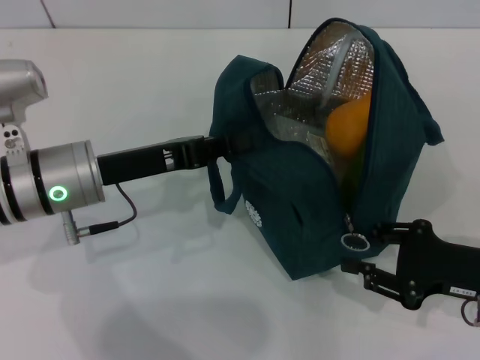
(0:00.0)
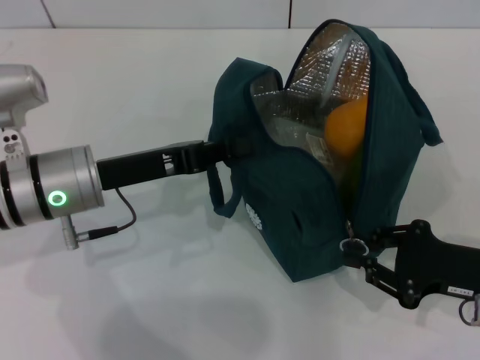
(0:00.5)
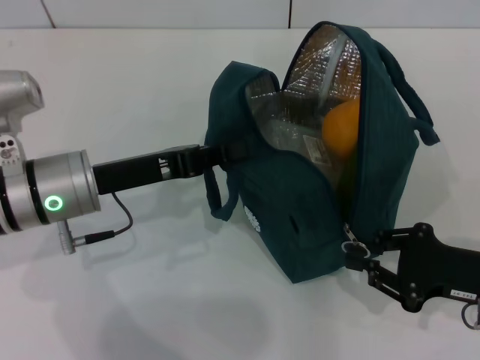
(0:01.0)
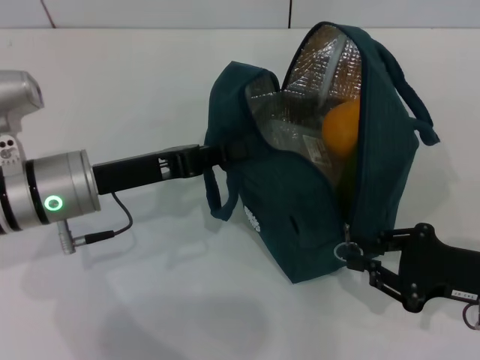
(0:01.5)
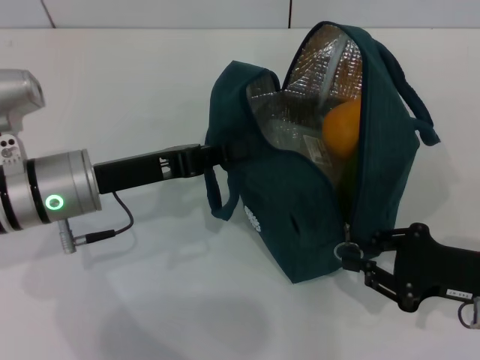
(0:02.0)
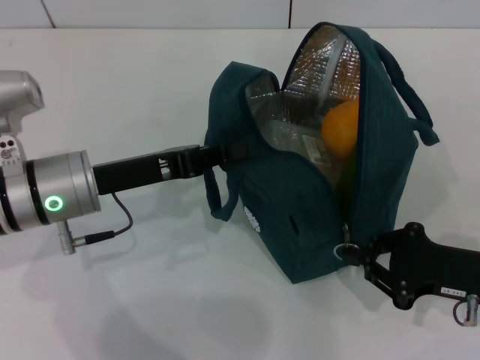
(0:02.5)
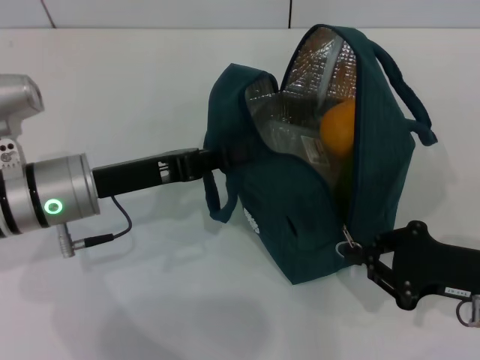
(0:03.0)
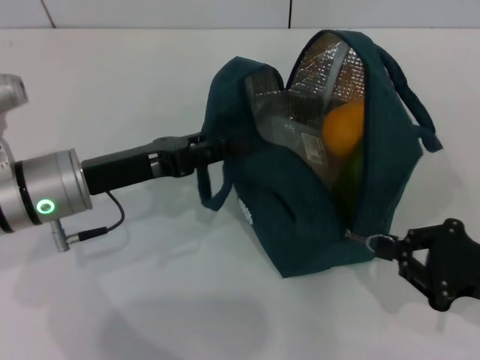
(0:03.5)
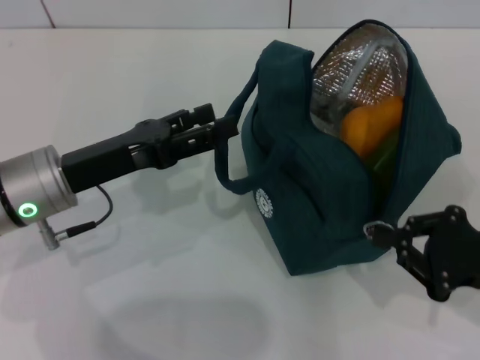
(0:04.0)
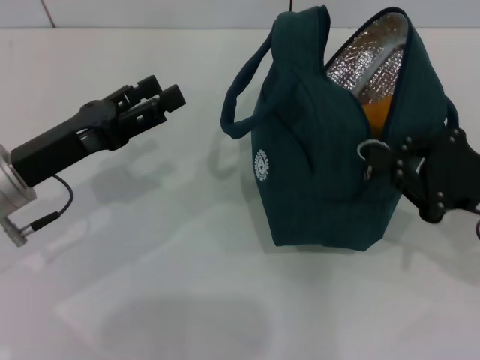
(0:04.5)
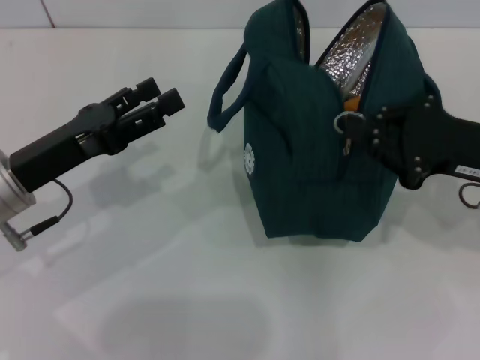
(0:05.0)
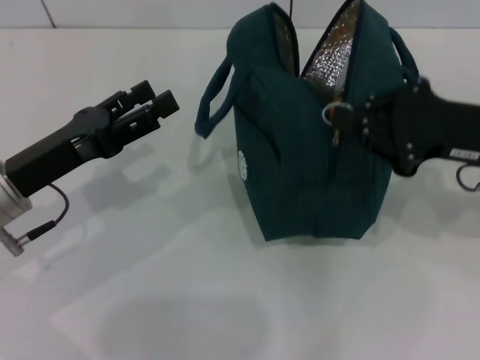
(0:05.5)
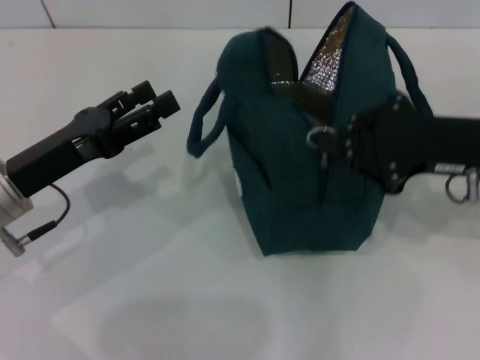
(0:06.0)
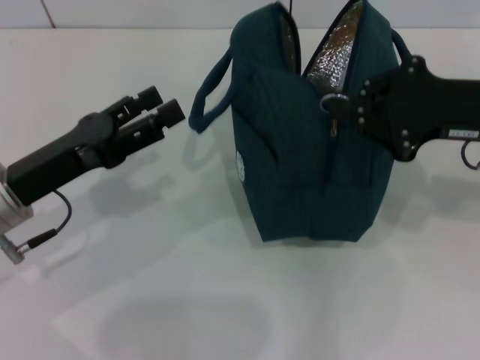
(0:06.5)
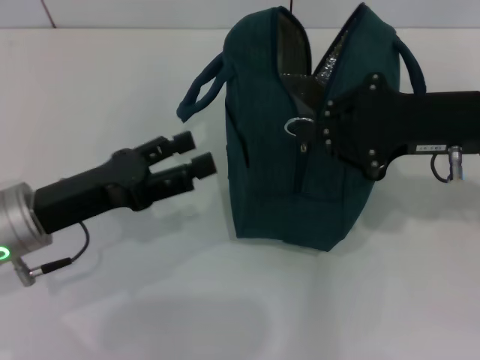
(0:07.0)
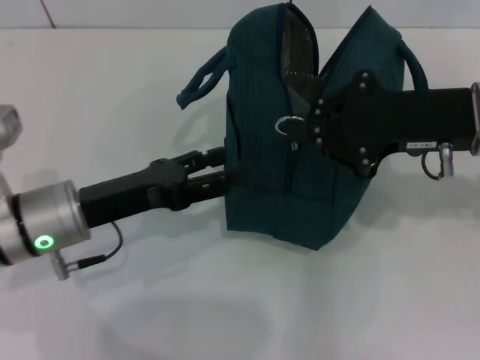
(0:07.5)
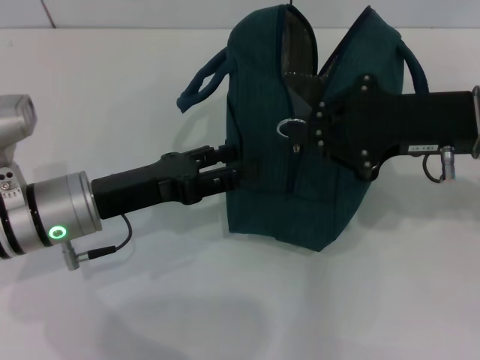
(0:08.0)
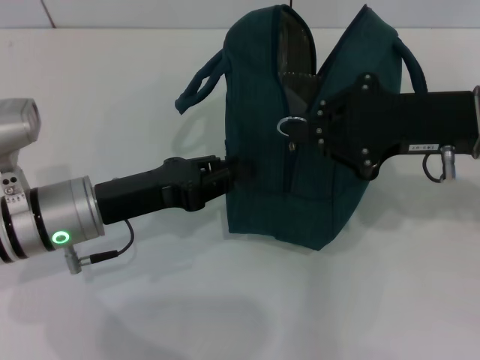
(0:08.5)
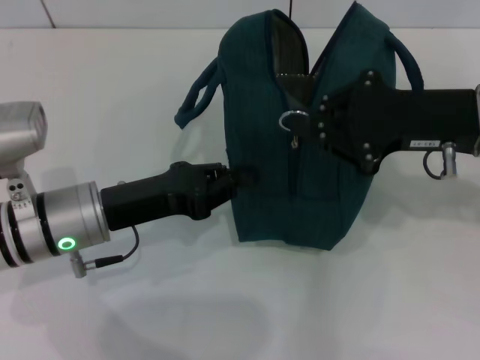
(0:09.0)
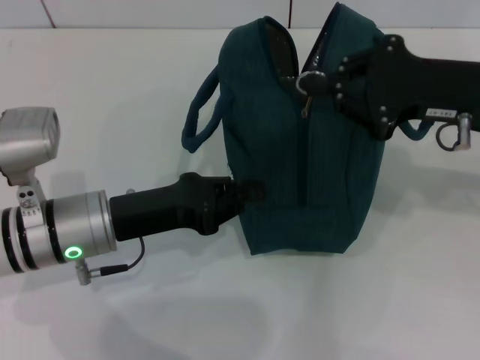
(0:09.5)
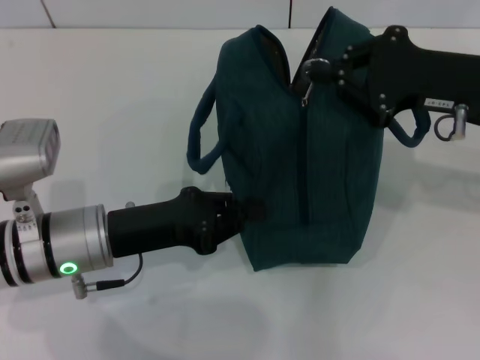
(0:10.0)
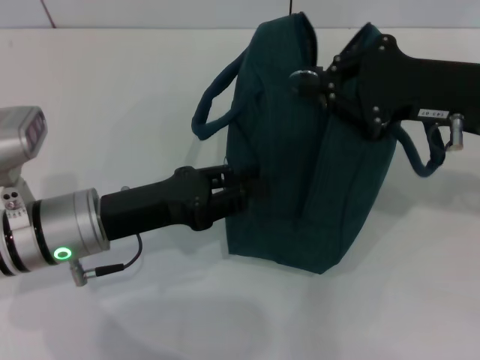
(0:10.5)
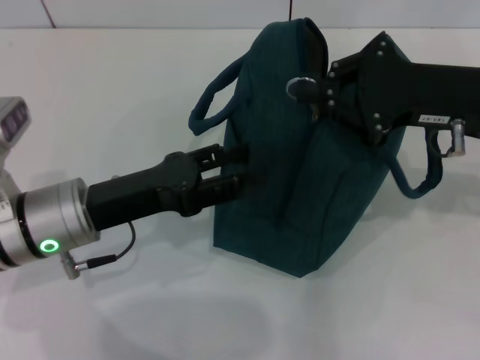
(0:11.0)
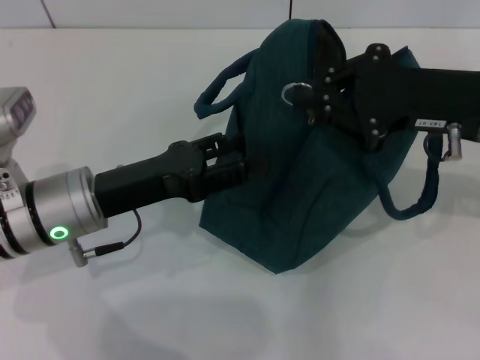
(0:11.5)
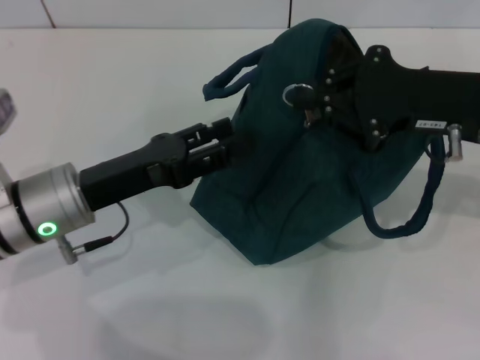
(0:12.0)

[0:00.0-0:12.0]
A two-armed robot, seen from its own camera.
Step, 0:00.0 to 0:03.5: Hold the lunch bag with your left hand.
0:00.0 to 0:02.0: The right gripper closes up.
0:02.0 to 0:04.0: The left gripper opens.
0:04.0 to 0:06.0: The right gripper goes some 10 cm upward and forward.
0:06.0 to 0:08.0: The left gripper moves to the right, roughly 5 cm.
0:08.0 to 0:10.0: The left gripper closes its fingers.
0:10.0 to 0:12.0: The left gripper opens its fingers.

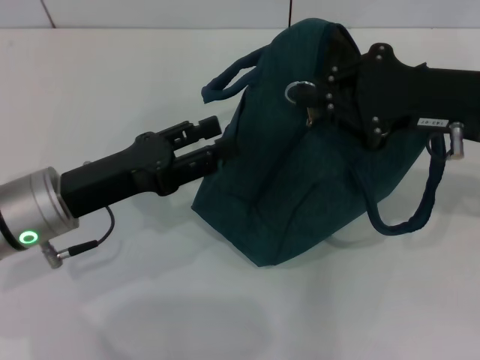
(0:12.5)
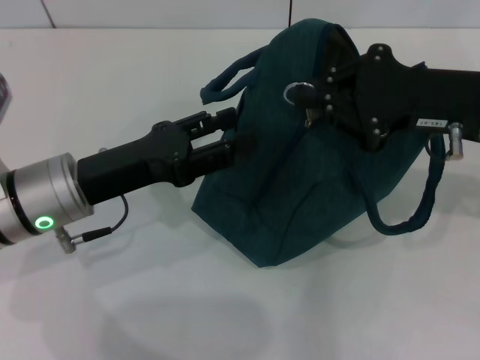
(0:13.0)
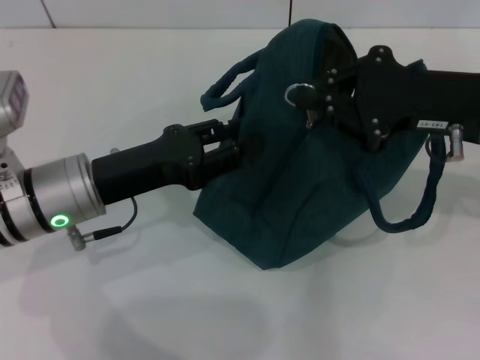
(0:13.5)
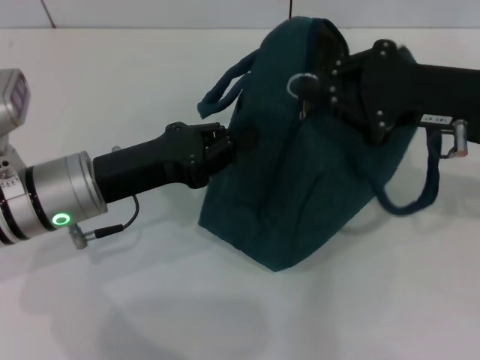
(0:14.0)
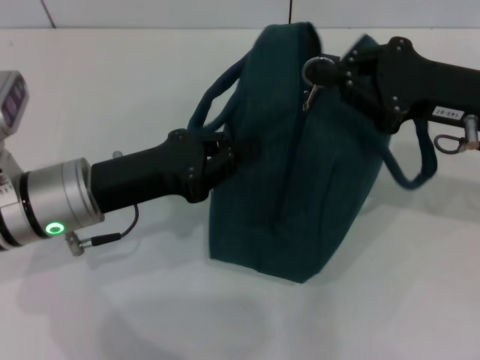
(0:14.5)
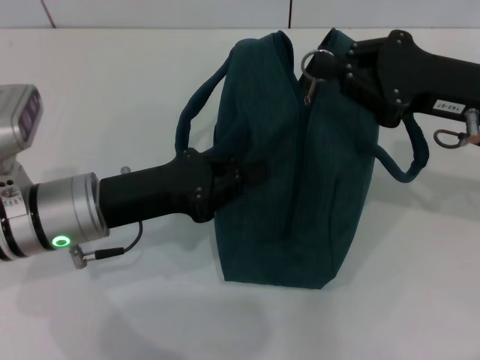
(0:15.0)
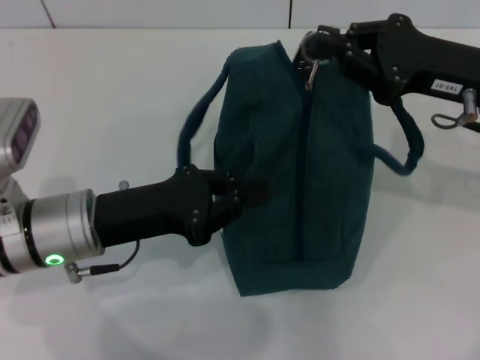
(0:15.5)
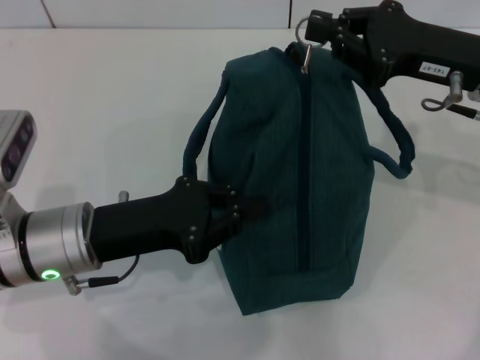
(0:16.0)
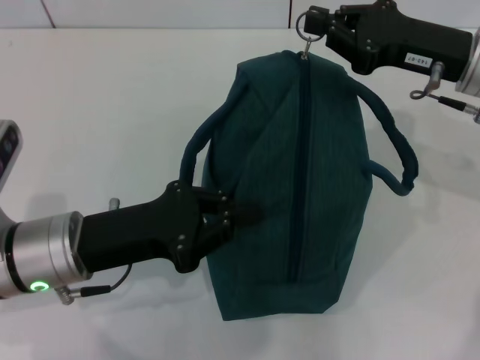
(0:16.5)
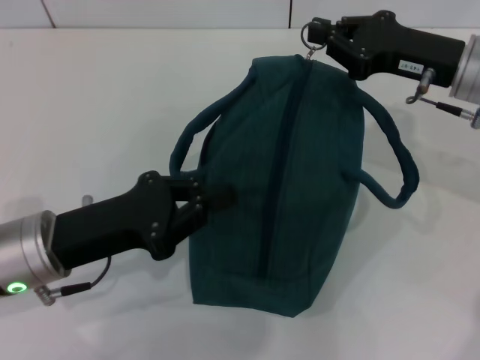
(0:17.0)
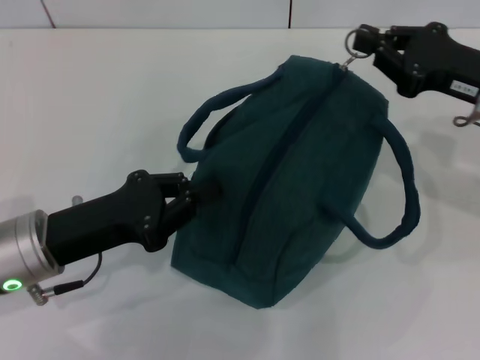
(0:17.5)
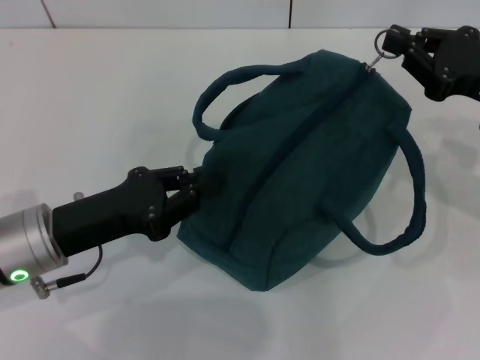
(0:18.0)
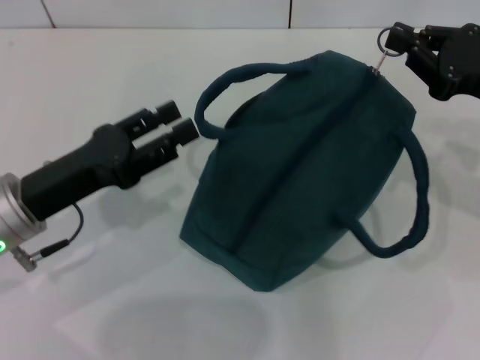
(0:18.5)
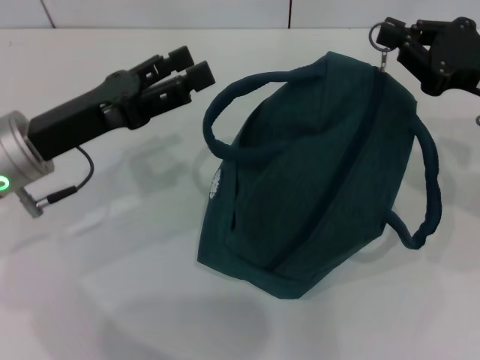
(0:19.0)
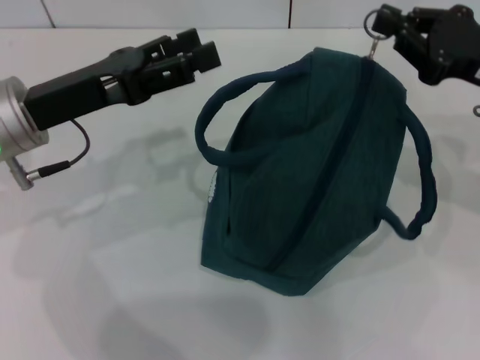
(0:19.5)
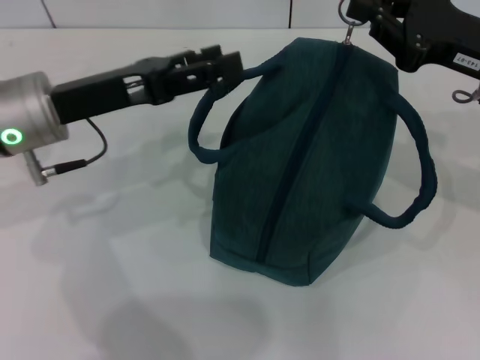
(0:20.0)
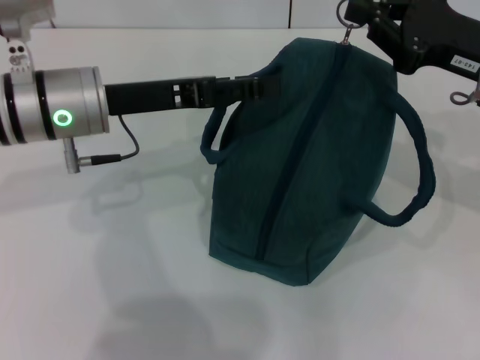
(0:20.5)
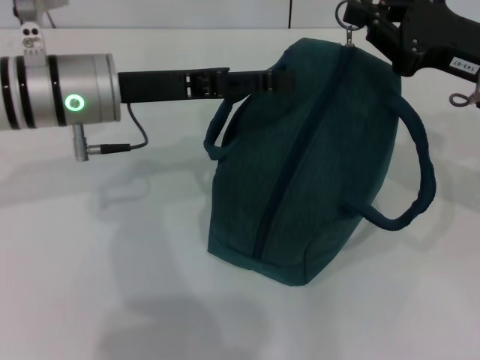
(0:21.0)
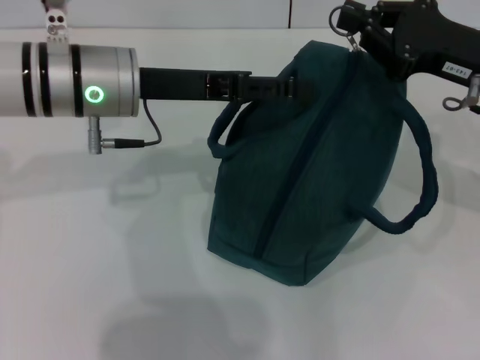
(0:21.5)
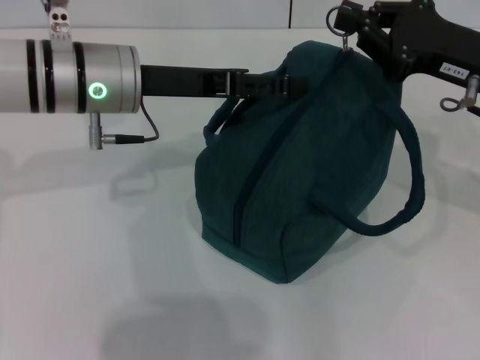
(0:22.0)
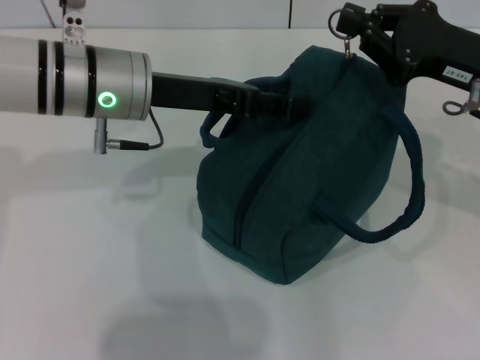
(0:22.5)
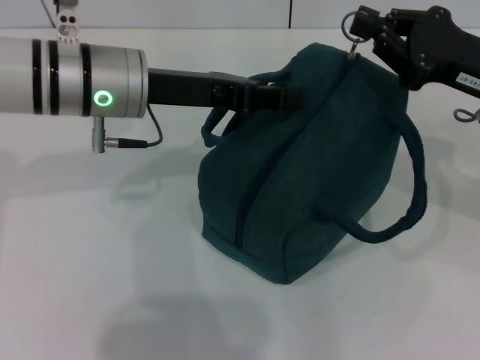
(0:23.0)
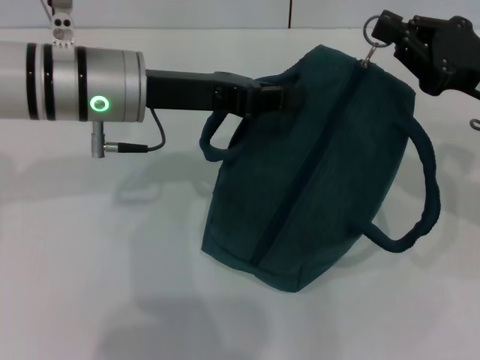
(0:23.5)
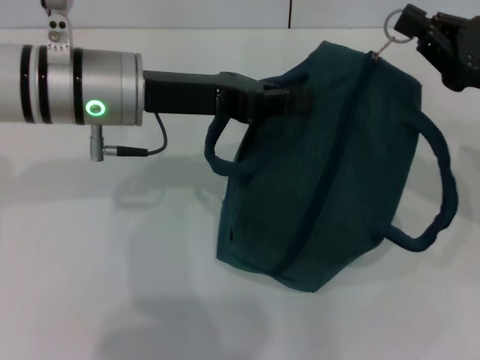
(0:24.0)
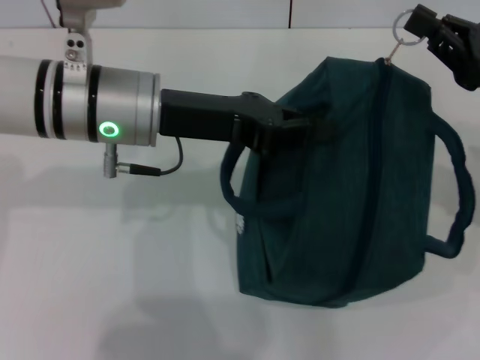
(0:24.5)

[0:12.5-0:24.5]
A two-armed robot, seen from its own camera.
0:12.5 to 0:14.5: The left gripper closes up.
0:16.5 to 0:18.5: The right gripper goes approximately 5 cm to the right; the left gripper opens its fingers.
0:18.5 to 0:20.5: The left gripper heads forward, upward and to the right, covering roughly 10 cm, and opens.
0:20.5 to 0:22.5: There are only small adjustments of the grippers.
0:22.5 to 0:24.5: The right gripper ends up about 5 cm from where it was. Meanwhile the left gripper closes its fingers.

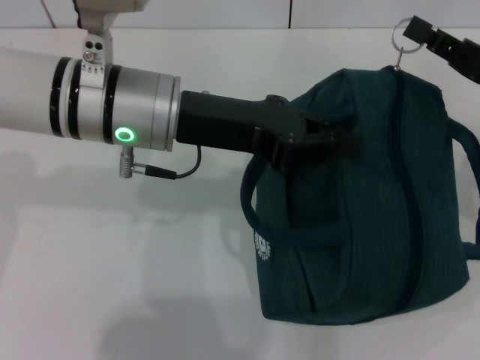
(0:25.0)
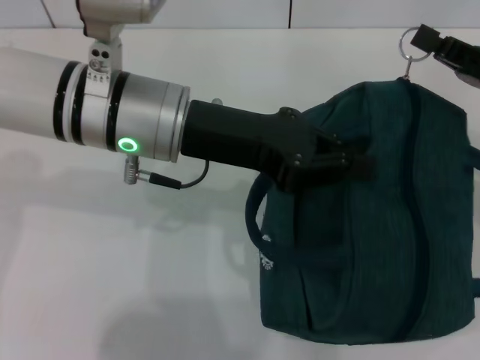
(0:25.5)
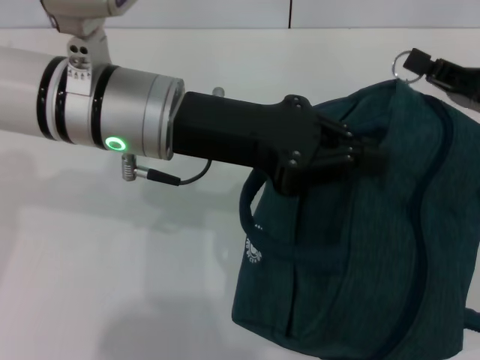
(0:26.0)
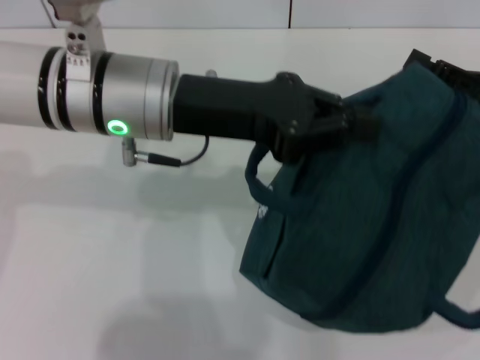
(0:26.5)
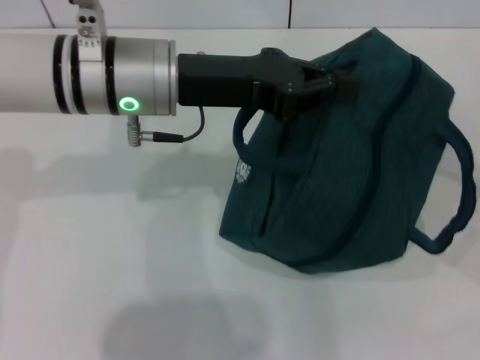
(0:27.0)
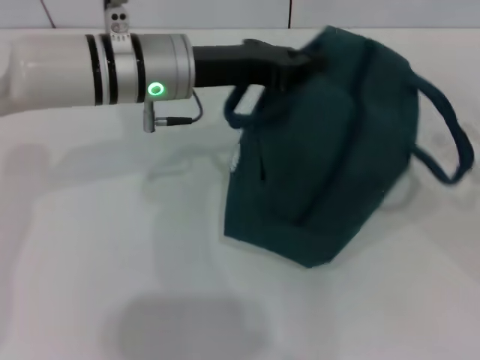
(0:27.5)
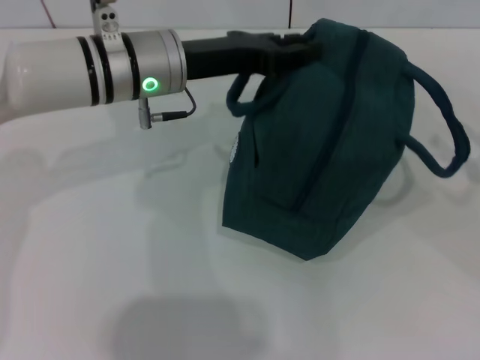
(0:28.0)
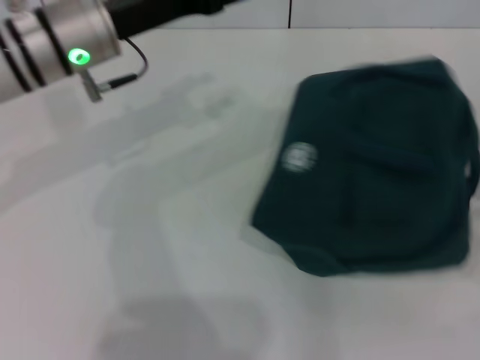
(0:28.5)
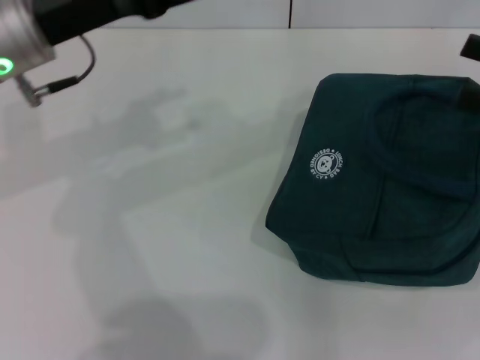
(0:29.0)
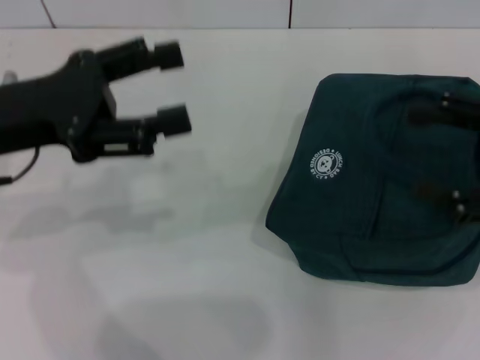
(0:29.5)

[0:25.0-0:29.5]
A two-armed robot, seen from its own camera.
Step, 0:27.0 to 0:28.0: Hold the lunch bag with your left hand.
0:25.0 to 0:27.0: The right gripper heads to the right, covering some 5 cm, and opens its fingers.
0:27.0 to 0:29.5: The right gripper travels upward and to the left by approximately 10 cm, and opens, while the left gripper goes approximately 15 cm to the left and backward, and opens up.
